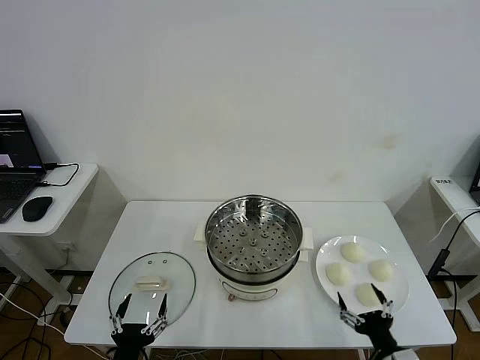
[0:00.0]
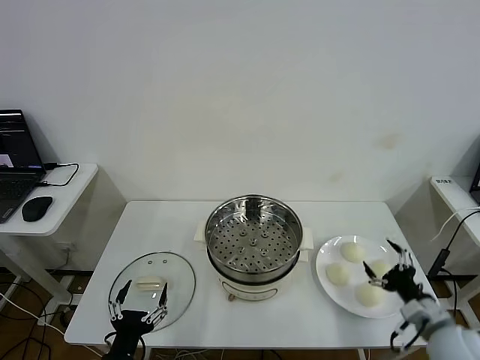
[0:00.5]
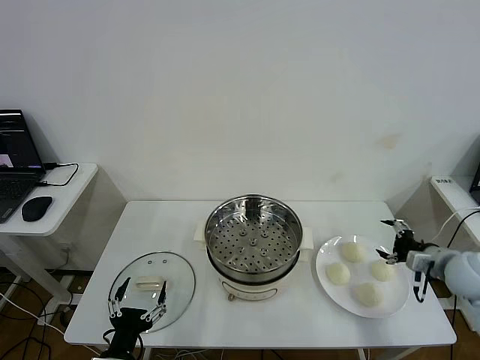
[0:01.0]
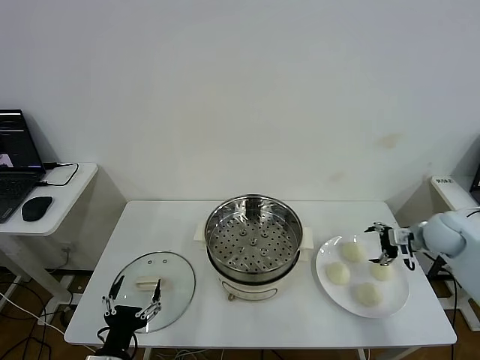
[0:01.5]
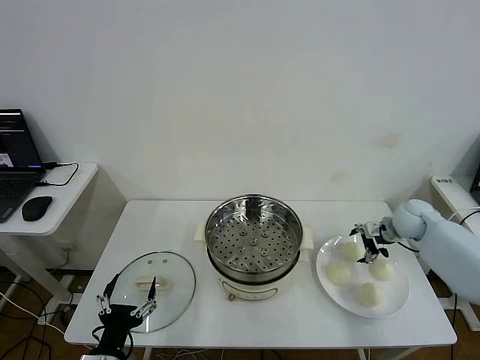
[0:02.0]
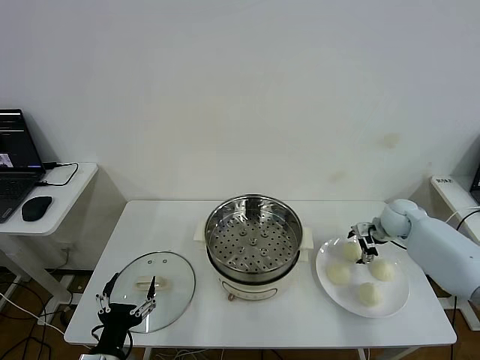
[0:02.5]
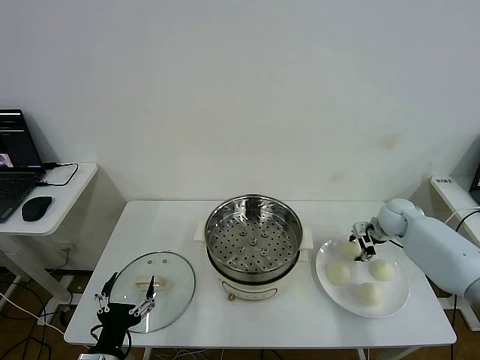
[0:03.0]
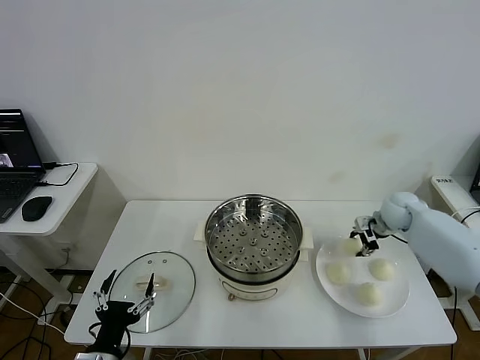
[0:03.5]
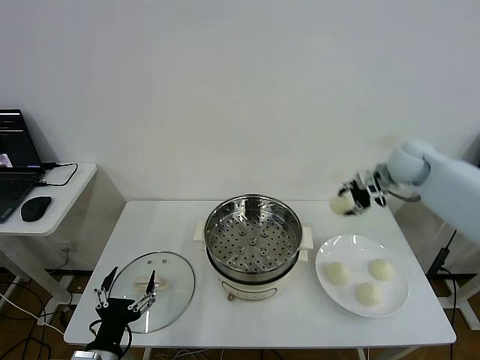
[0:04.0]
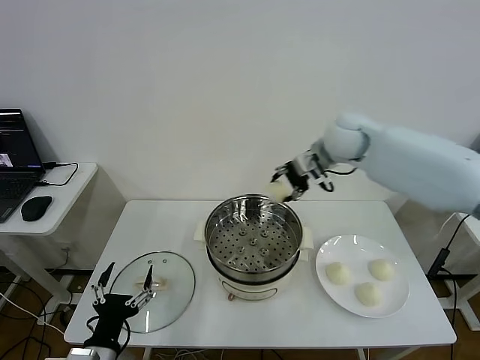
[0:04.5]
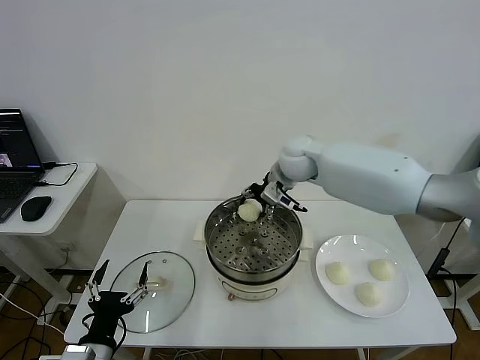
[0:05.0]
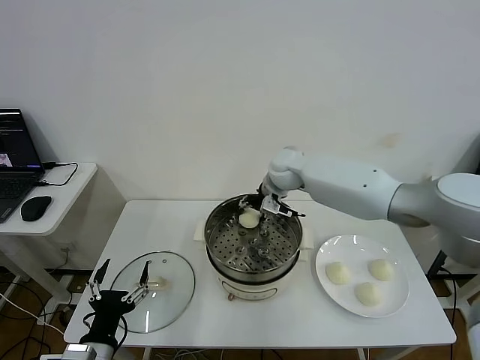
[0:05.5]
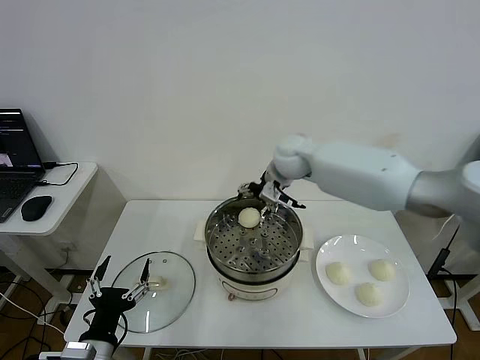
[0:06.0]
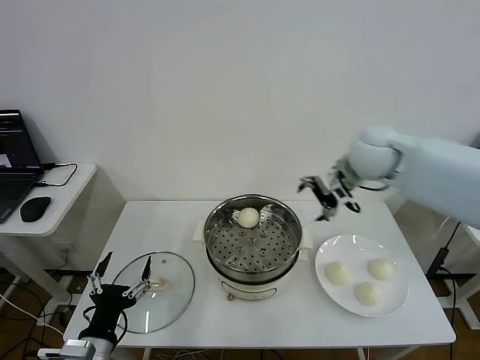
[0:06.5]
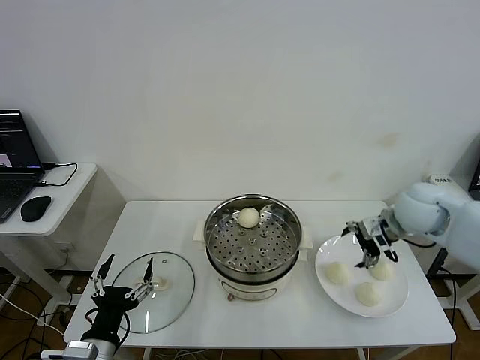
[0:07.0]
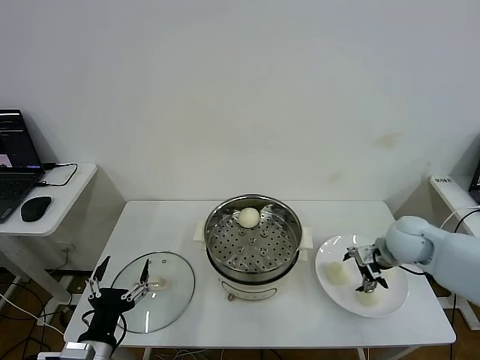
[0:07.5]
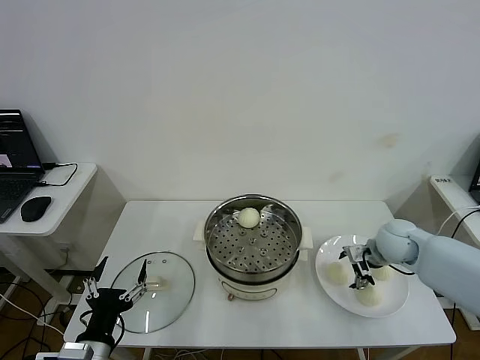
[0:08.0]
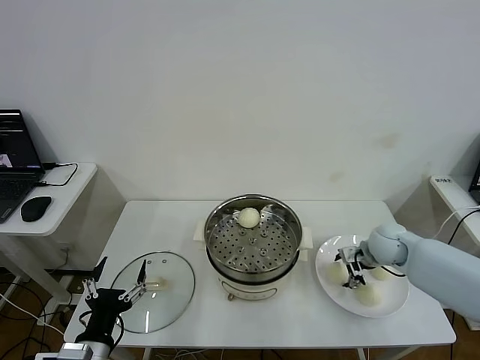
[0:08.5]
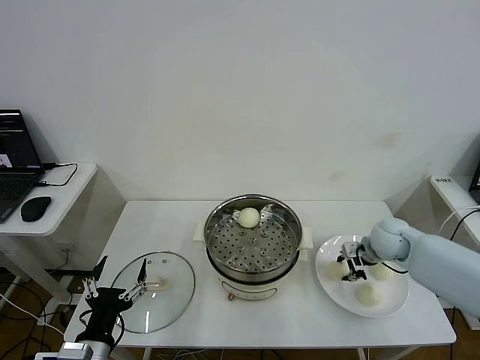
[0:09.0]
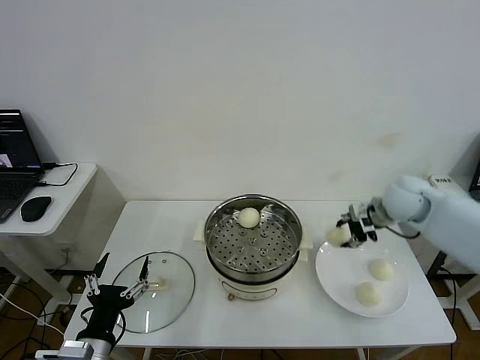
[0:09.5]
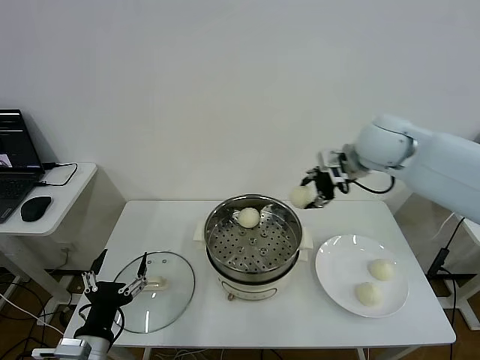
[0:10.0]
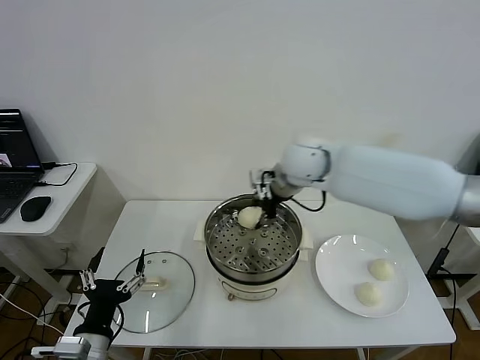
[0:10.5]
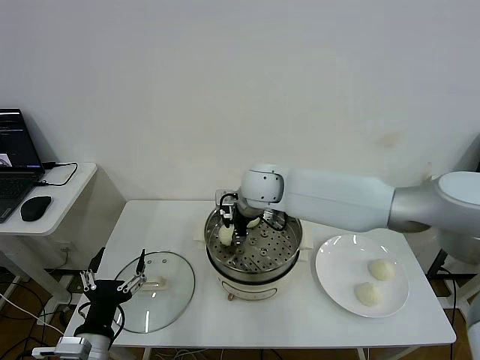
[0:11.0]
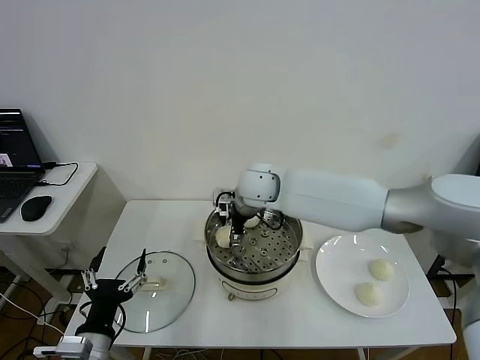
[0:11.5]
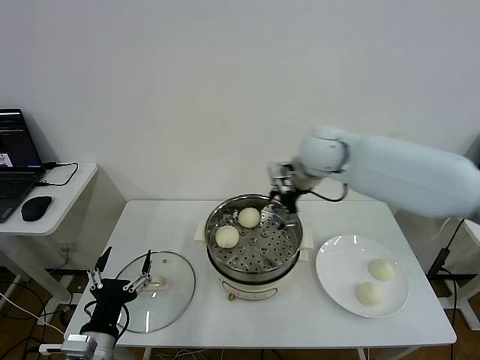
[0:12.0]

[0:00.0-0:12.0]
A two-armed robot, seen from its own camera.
Step, 0:00.0 to 0:02.5: Grasp the baozi in the plate with right gripper.
Step, 0:03.0 to 0:05.5: Place the baozi on the steamer with right gripper.
Step, 0:06.0 to 0:08.5: Grasp the baozi in the plate with right gripper.
Step, 0:09.0 to 0:11.0: Place the baozi on the steamer with right gripper.
0:02.0 to 0:04.0: The right gripper travels upward and to the left by some 20 cm, and closes its fingers.
0:04.0 to 0:06.0: The right gripper moves to the left, about 20 cm, and opens.
0:06.0 to 0:08.0: The right gripper travels to the right, downward and backward by about 30 cm.
0:08.0 to 0:10.0: The right gripper moves upward and to the left, approximately 25 cm, and closes its fingers.
0:10.0 to 0:12.0: The right gripper goes to the left and returns, approximately 20 cm each way, and opens its fingers.

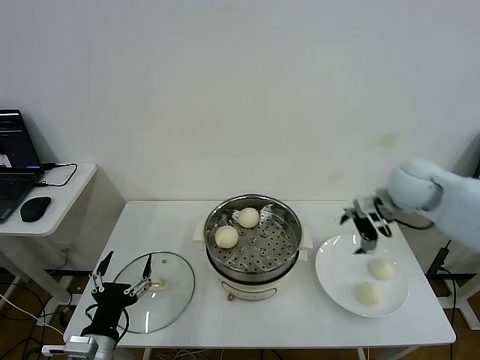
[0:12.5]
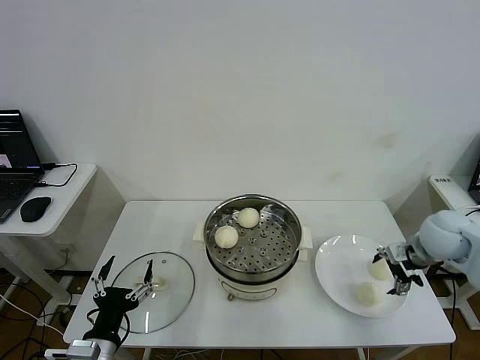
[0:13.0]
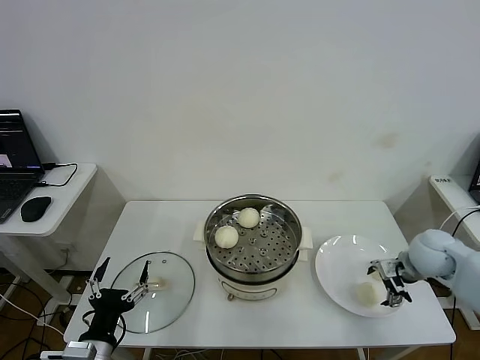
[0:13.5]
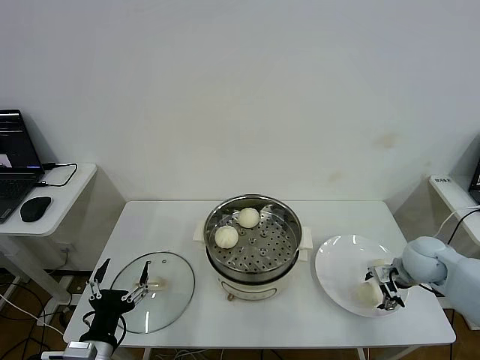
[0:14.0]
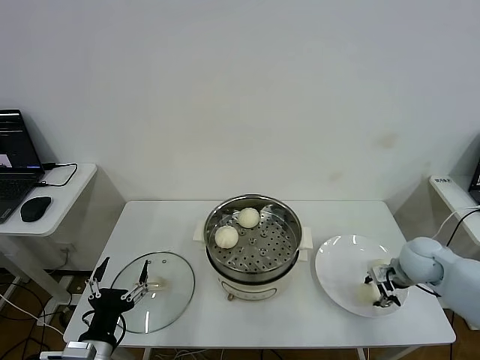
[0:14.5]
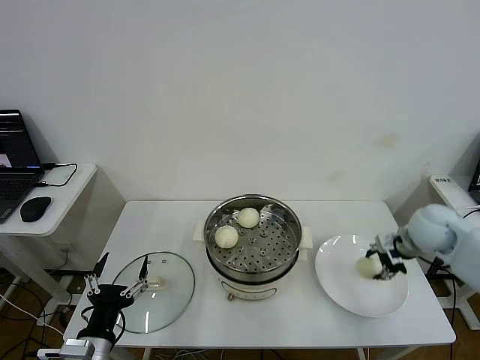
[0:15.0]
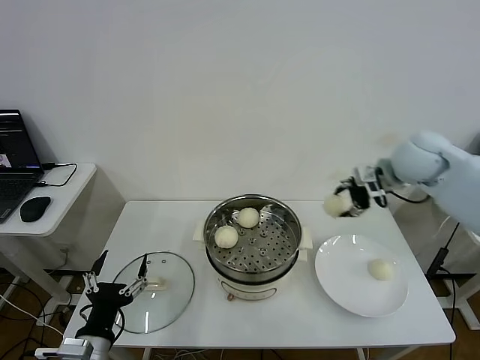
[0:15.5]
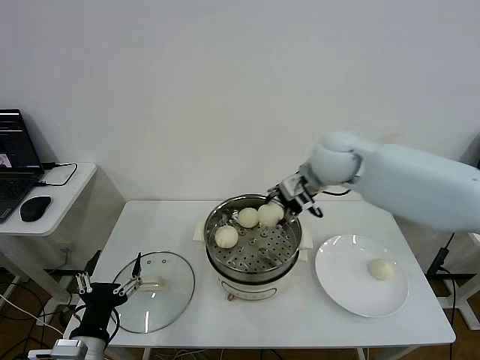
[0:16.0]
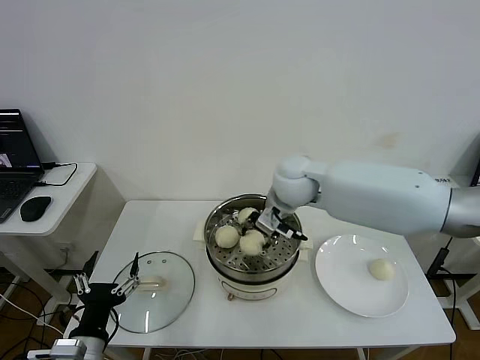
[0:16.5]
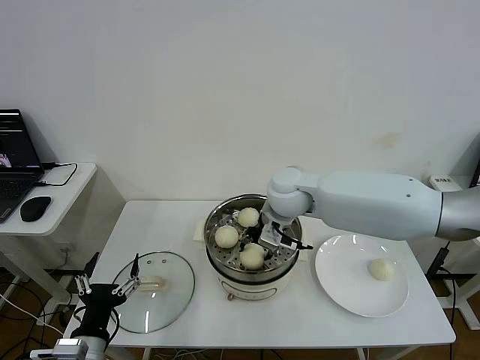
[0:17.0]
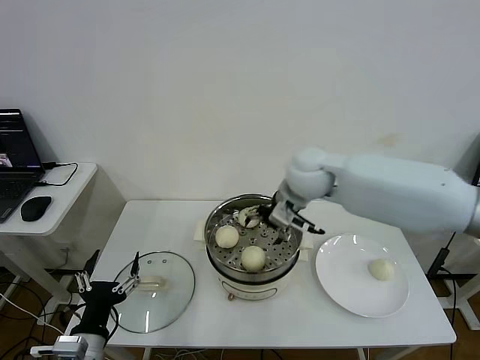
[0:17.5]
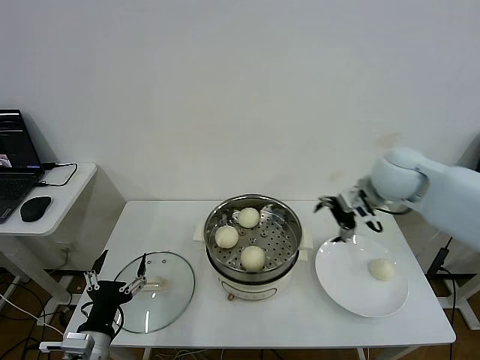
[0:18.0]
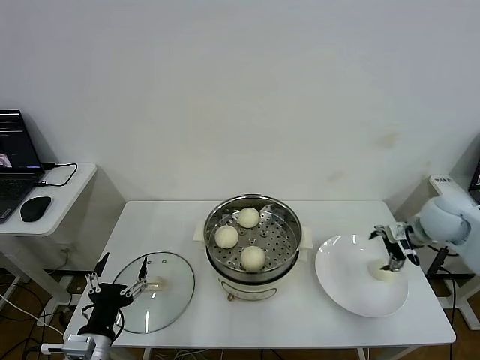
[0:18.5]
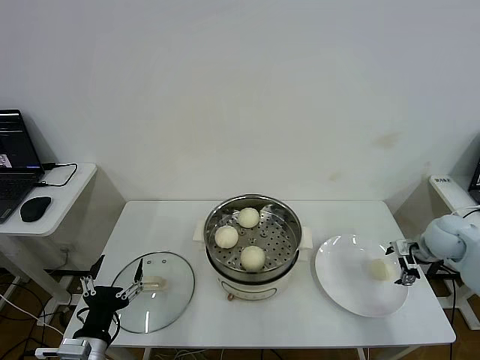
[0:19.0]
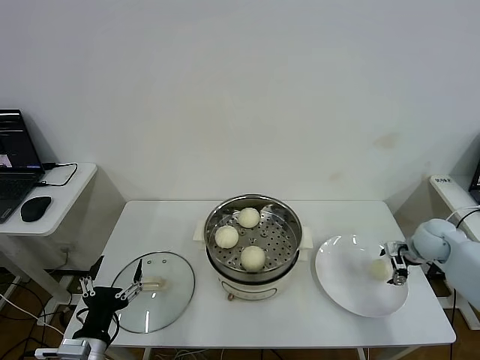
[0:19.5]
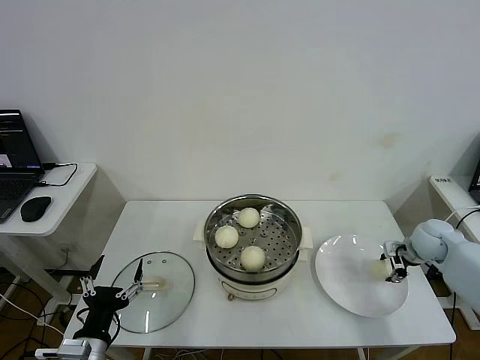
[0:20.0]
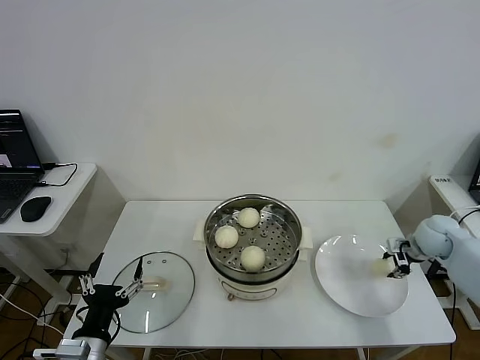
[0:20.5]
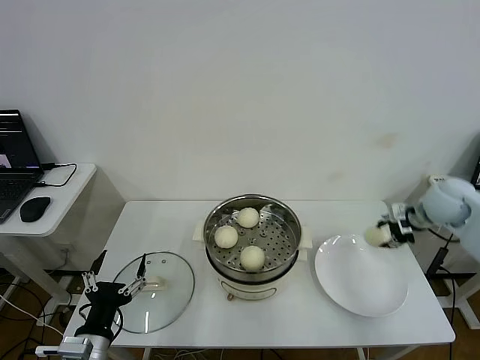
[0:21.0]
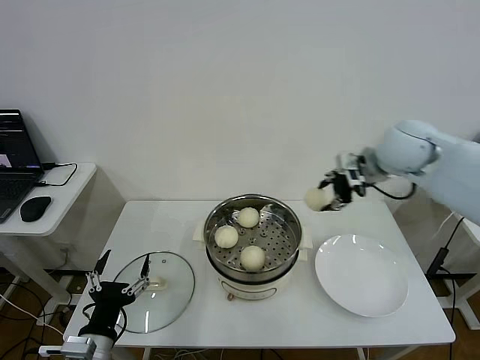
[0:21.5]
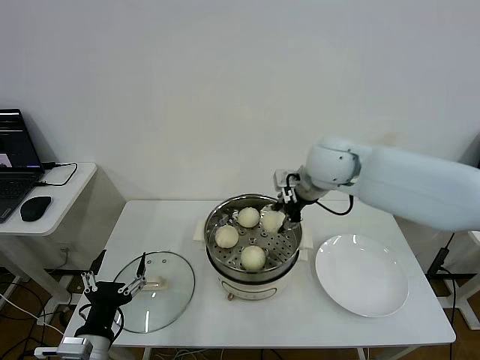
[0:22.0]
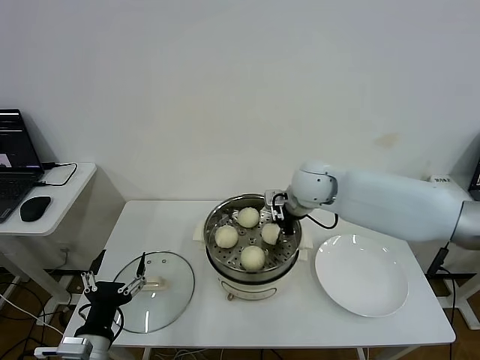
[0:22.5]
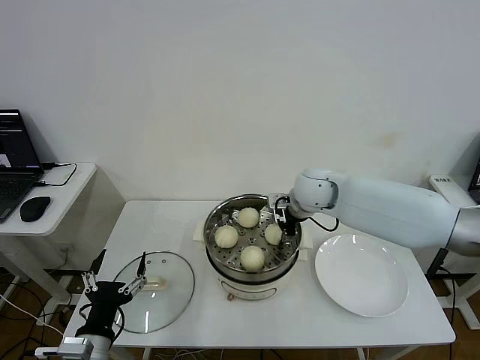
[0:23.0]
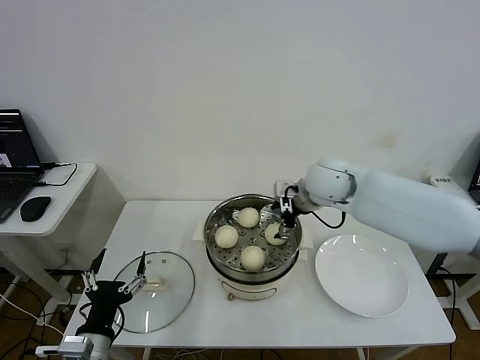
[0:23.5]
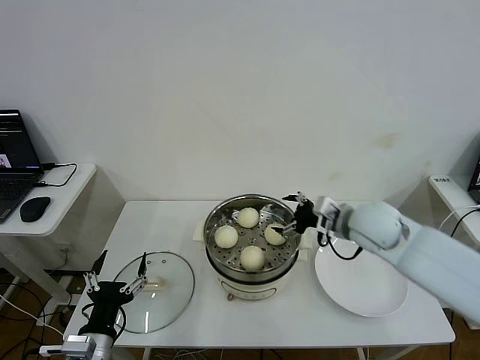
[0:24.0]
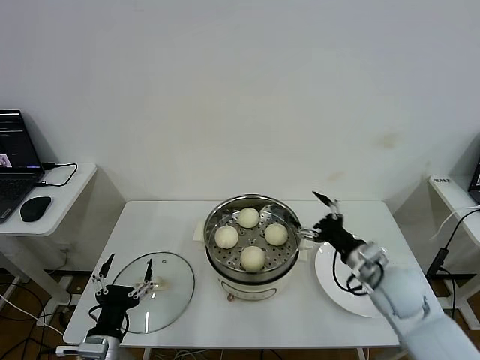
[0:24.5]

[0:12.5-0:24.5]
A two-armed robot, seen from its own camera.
Step, 0:12.5 to 0:14.0: Grasp the baozi in the plate with right gripper.
Step, 0:14.5 to 0:17.0: Place the baozi on the steamer with right gripper.
Step, 0:17.5 to 0:20.0: Grasp the baozi in the plate with right gripper.
Step, 0:20.5 to 0:23.0: Place the baozi on the steamer with right gripper.
0:12.5 to 0:14.5: The right gripper travels downward by roughly 15 cm, and closes its fingers.
0:14.5 to 0:16.5: The right gripper goes approximately 35 cm to the left and upward.
0:16.5 to 0:18.5: The right gripper is displaced to the right by some 35 cm, and opens.
0:18.5 to 0:20.5: The right gripper shifts approximately 10 cm downward, and closes.
0:20.5 to 0:22.5: The right gripper travels to the left by some 30 cm.
0:22.5 to 0:24.5: The right gripper moves backward, to the right and downward, roughly 25 cm, and opens up.

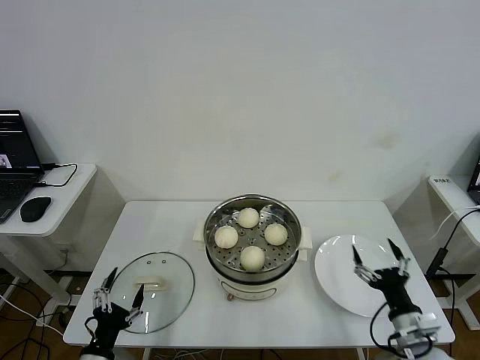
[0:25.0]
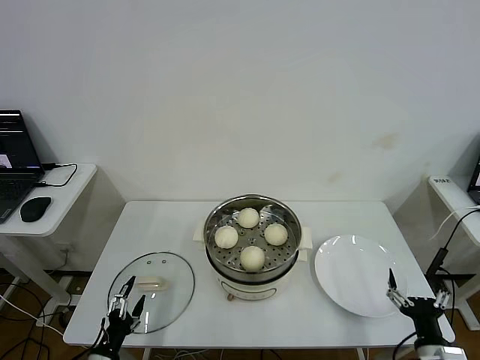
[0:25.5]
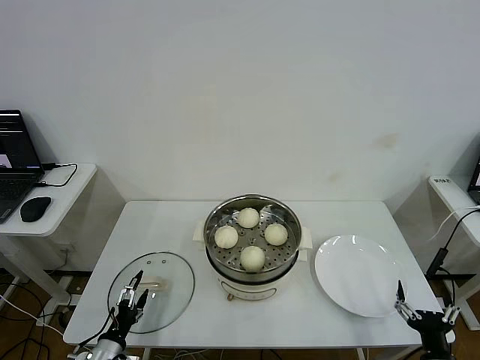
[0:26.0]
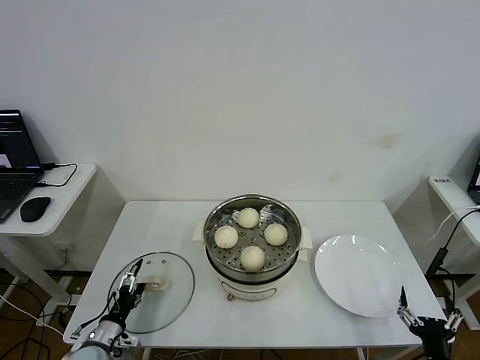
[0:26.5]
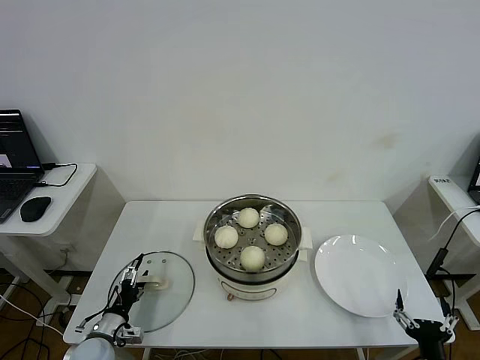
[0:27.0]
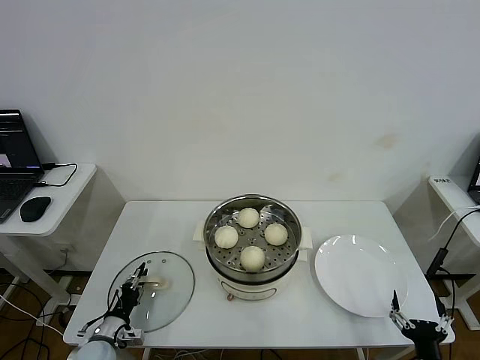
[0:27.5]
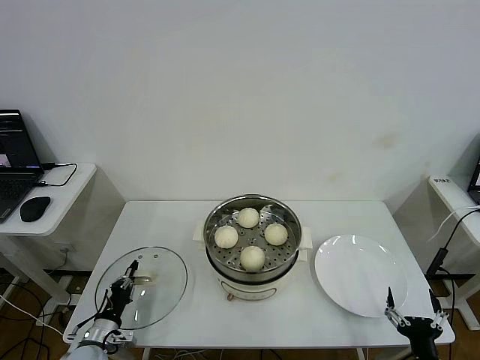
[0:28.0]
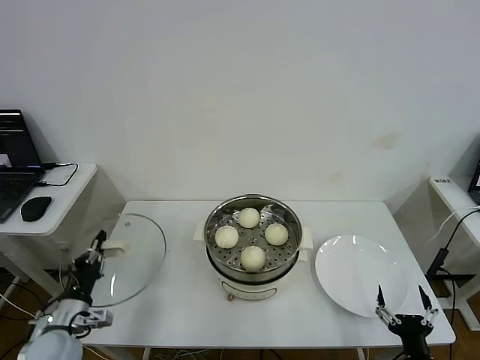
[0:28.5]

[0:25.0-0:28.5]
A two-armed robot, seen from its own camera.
Step, 0:25.0 to 0:27.5: Grasp the pot lid with left gripper.
0:25.0 to 0:27.0: The left gripper shifts some 15 cm forward and downward; the right gripper moves backward, some 10 cm.
0:27.0 to 0:28.5: The left gripper is displaced upward by about 10 cm, and closes its fingers.
